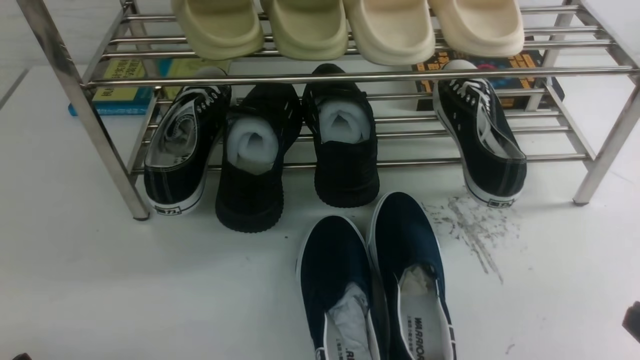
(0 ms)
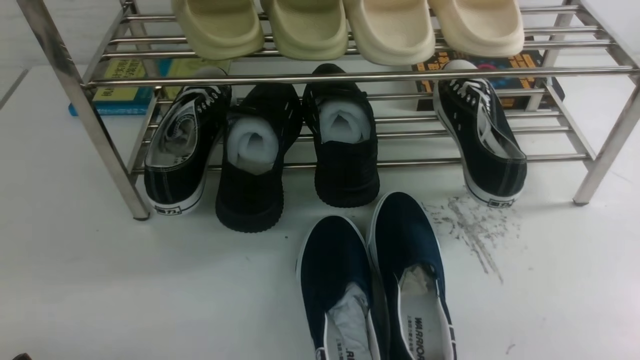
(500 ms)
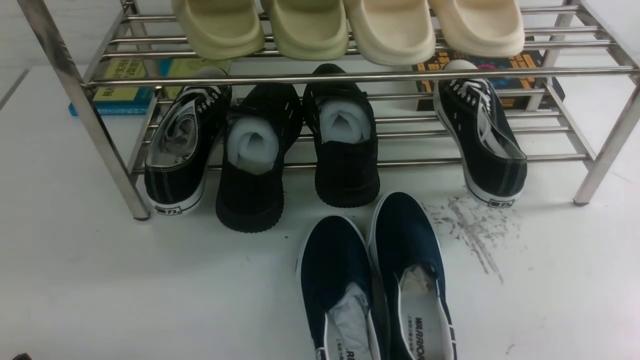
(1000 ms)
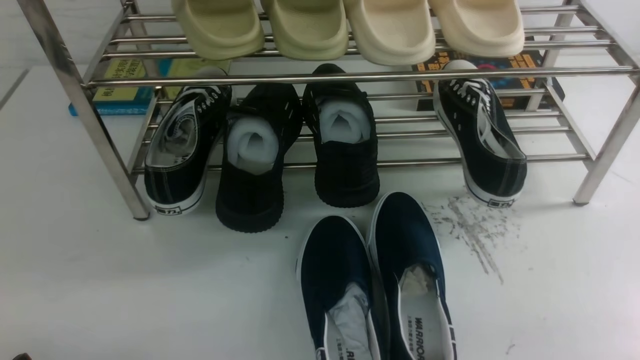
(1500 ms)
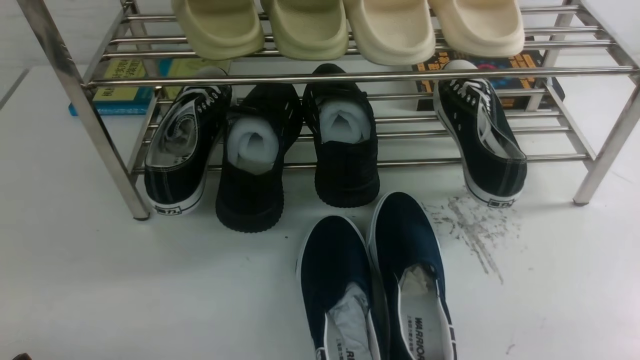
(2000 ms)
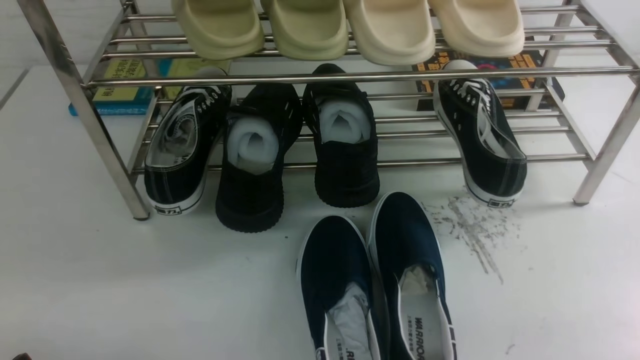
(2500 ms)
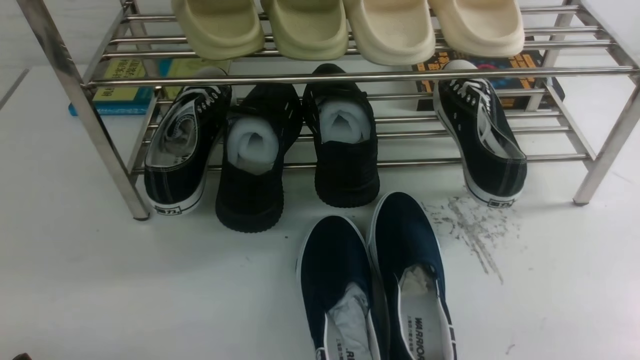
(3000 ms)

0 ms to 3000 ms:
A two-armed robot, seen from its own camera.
1500 ms to 3000 ms: The two grippers keep their place.
